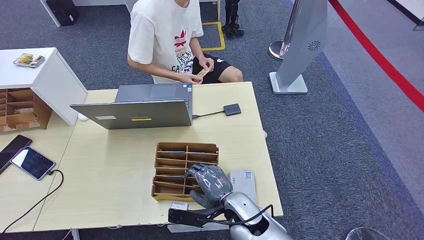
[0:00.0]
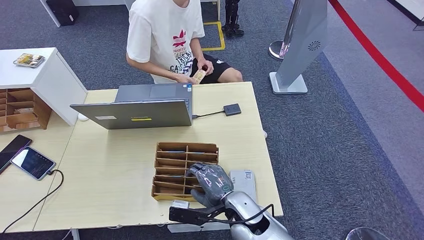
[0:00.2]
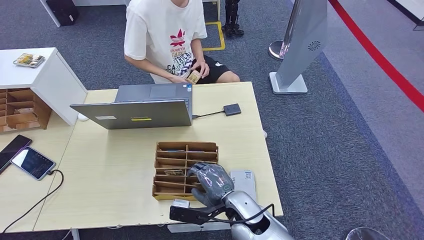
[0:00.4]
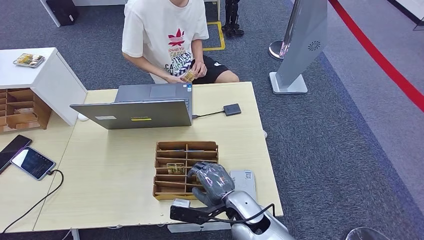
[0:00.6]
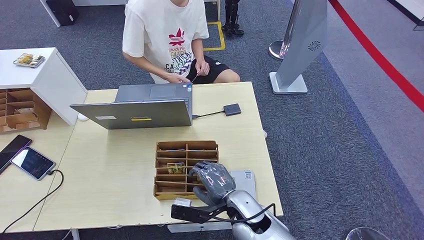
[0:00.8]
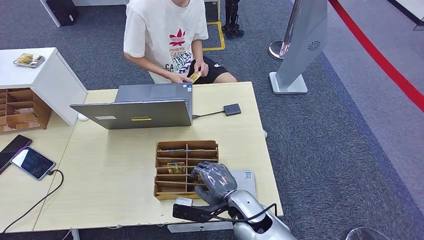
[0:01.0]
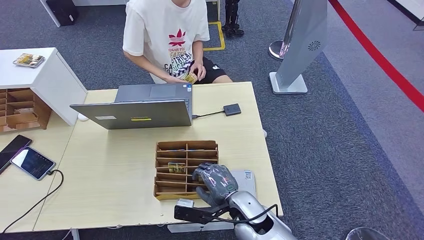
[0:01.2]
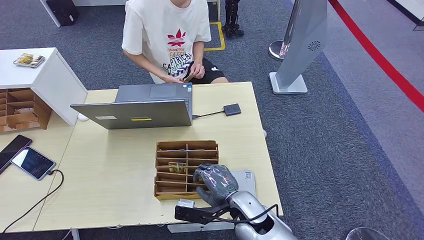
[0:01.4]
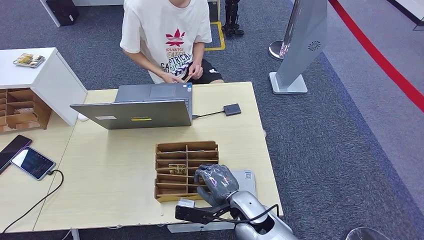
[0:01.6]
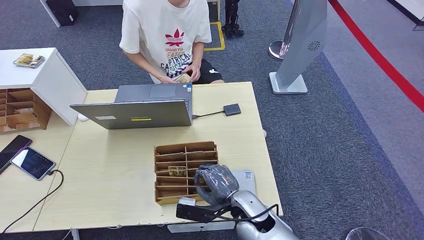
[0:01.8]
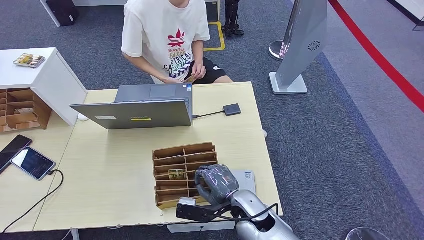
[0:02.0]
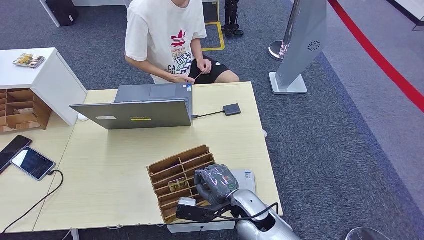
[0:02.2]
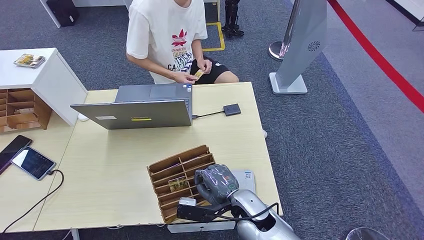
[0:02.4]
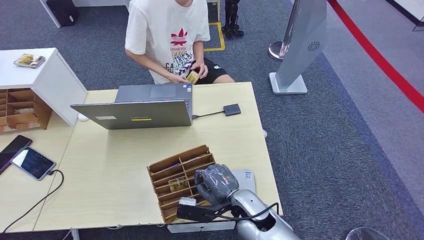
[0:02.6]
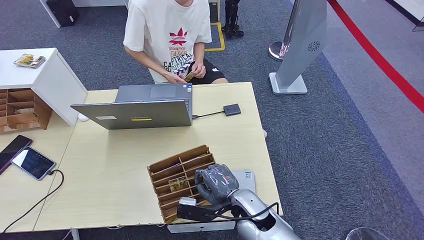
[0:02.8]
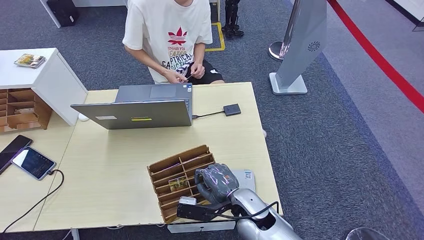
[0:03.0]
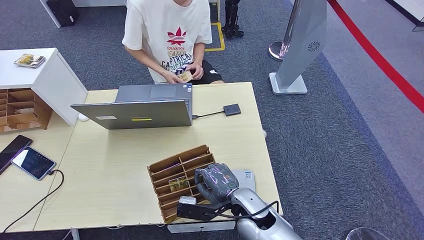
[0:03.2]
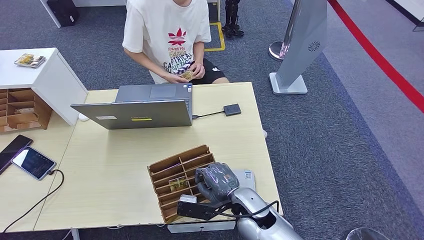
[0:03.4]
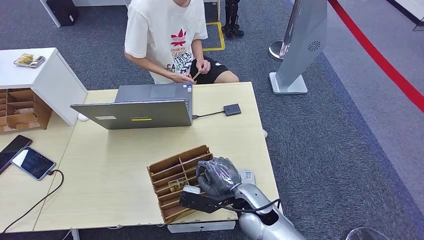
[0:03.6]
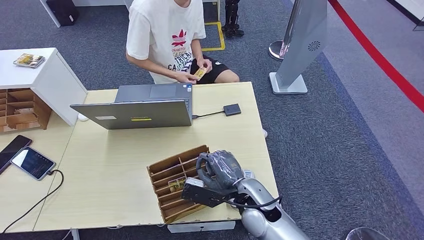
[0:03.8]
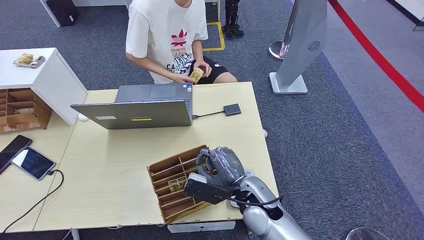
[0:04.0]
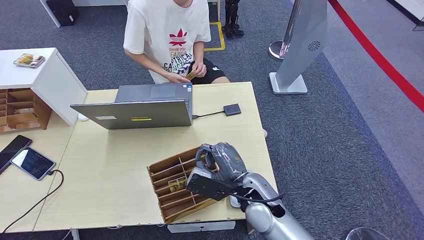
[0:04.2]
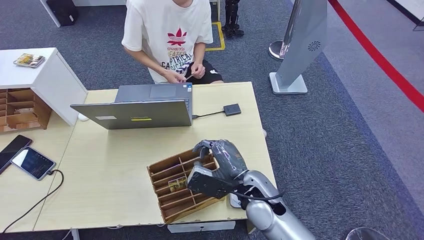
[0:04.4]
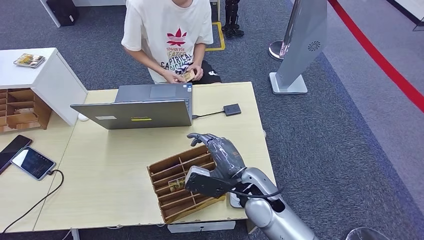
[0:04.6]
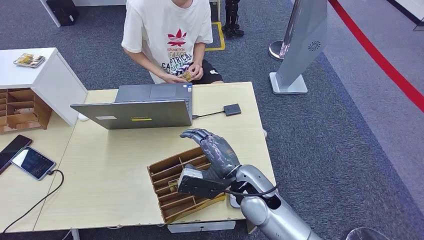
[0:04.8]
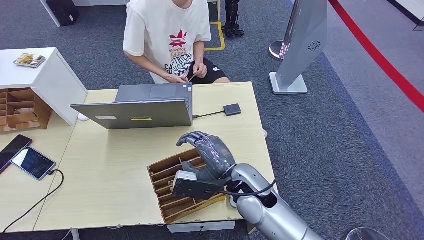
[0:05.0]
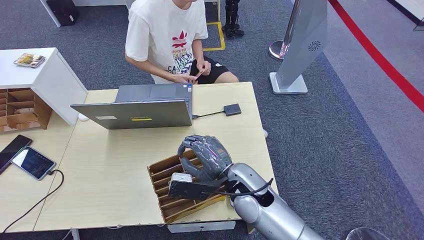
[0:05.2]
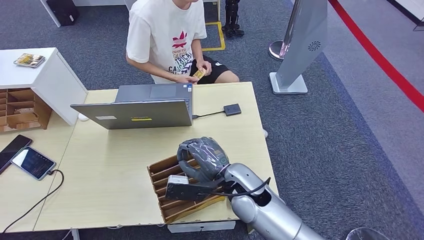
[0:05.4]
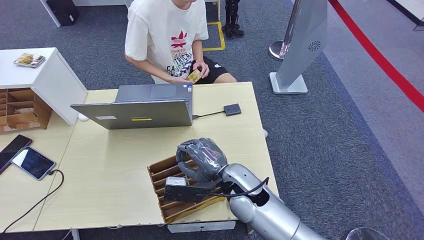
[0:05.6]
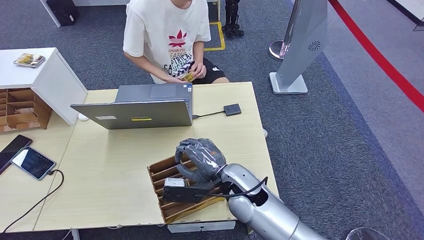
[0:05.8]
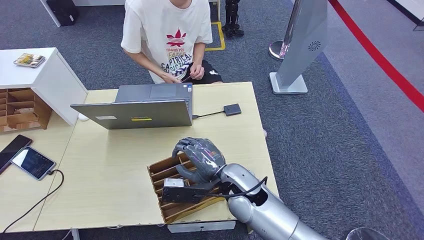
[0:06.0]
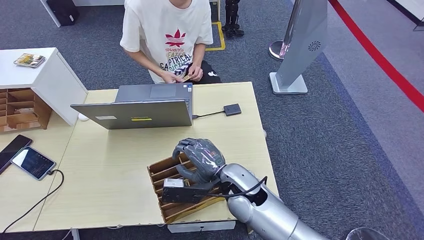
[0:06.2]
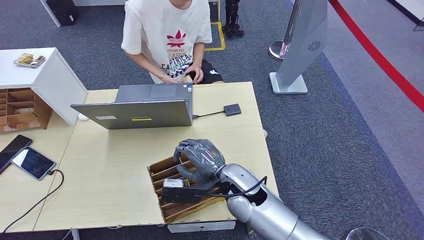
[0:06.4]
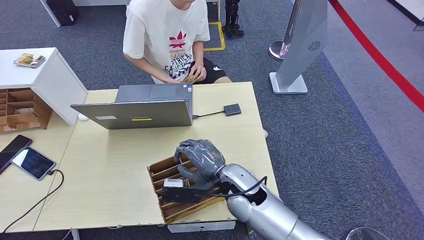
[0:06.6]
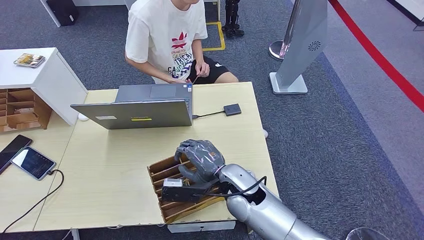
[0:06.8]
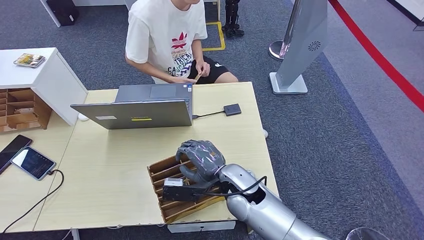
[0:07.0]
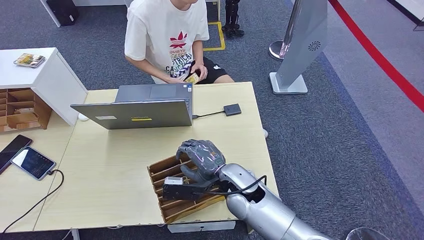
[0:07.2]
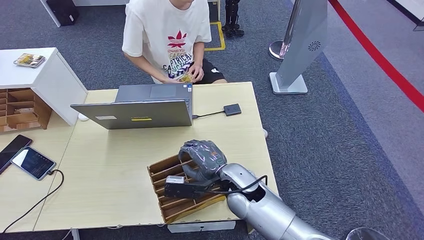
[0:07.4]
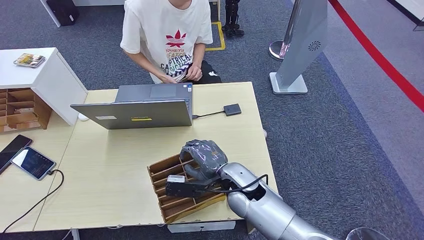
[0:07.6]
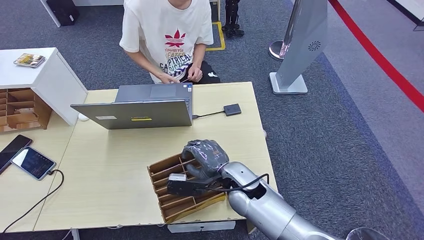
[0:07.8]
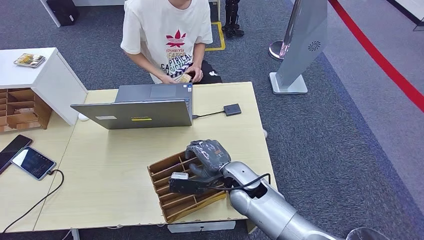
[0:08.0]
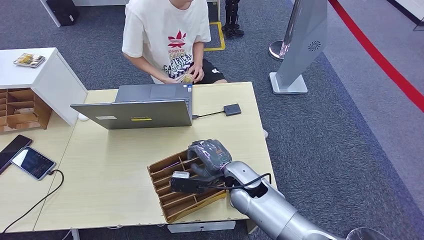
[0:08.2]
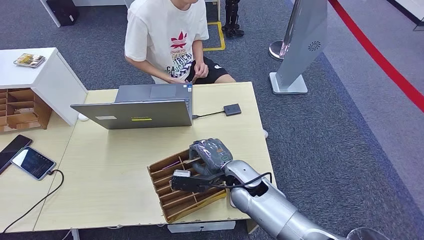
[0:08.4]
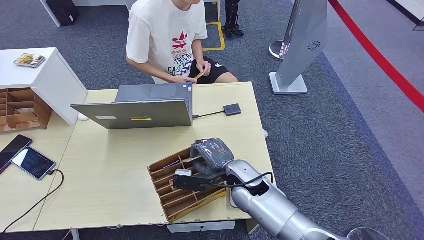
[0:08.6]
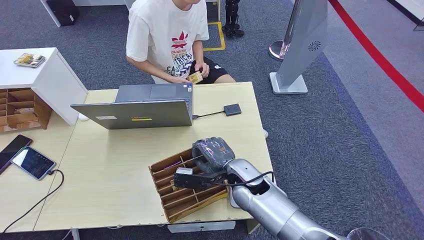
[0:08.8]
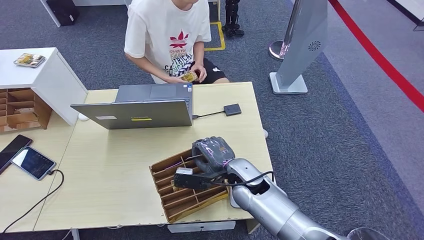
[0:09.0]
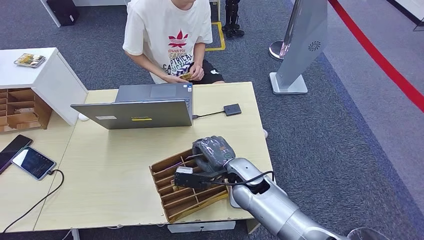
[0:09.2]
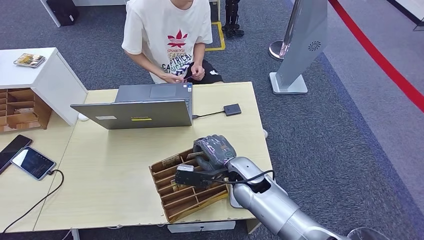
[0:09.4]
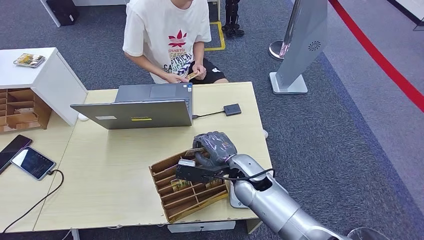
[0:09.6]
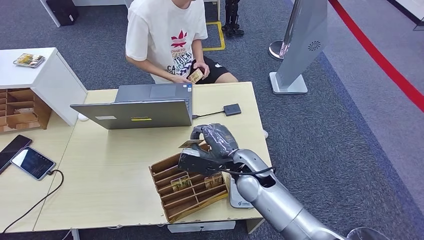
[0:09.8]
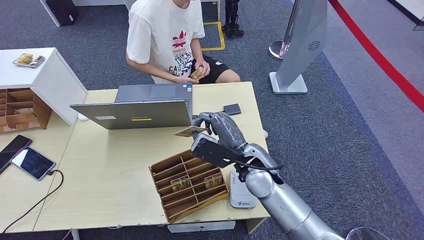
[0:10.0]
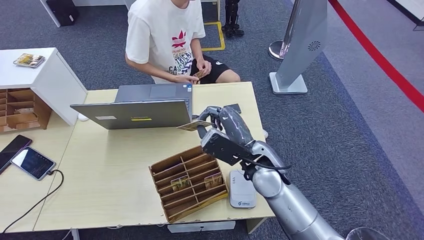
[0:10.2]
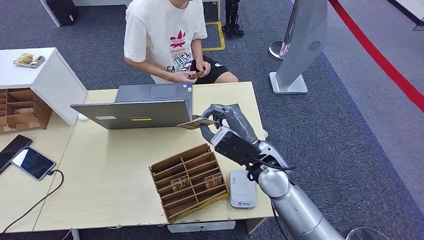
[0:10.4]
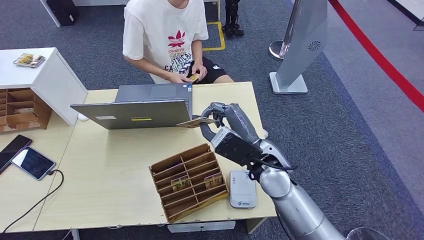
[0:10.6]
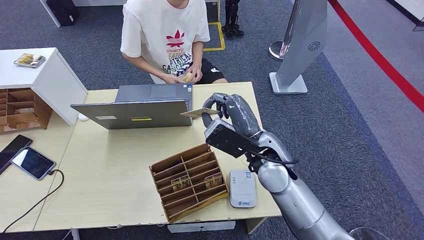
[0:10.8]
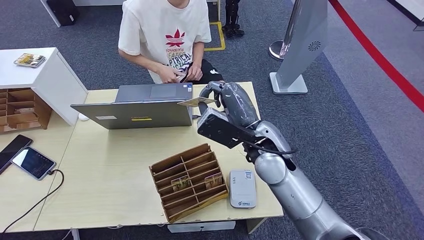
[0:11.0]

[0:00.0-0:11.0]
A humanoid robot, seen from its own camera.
Step, 0:00.0 to 0:10.8: Pick up the room key from the key card box.
0:00.0 to 0:01.6: The hands stay close to where they were, moving slightly.
0:01.6 to 0:03.2: Both hands stay about where they are.
0:03.2 to 0:04.8: The right hand is displaced upward by approximately 5 cm.
0:04.8 to 0:07.8: The hands make only small movements.
0:07.8 to 0:09.4: There are only small adjustments of the hands.
0:09.4 to 0:11.0: The right hand heads upward, covering about 15 cm.

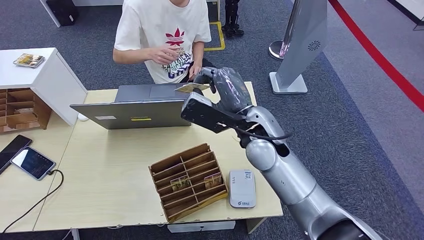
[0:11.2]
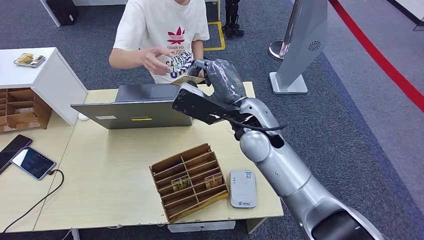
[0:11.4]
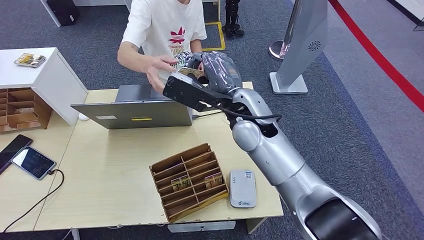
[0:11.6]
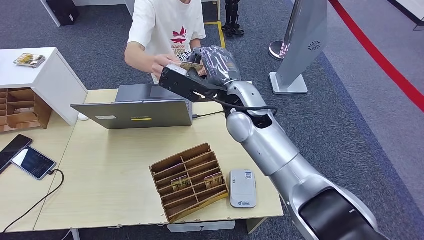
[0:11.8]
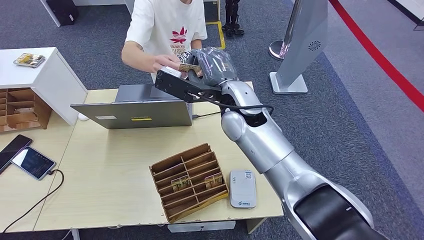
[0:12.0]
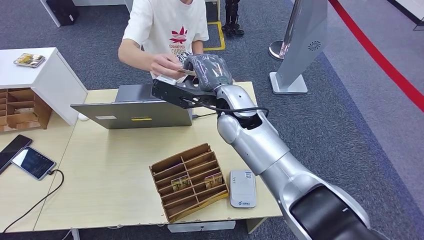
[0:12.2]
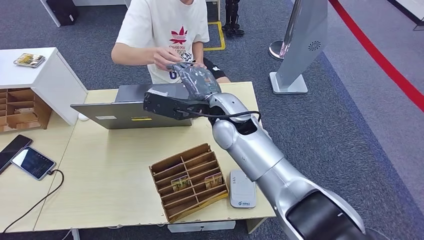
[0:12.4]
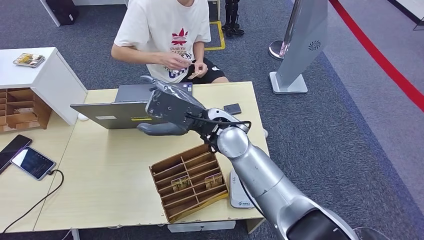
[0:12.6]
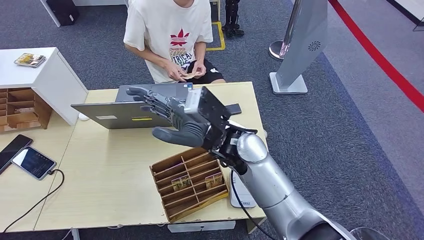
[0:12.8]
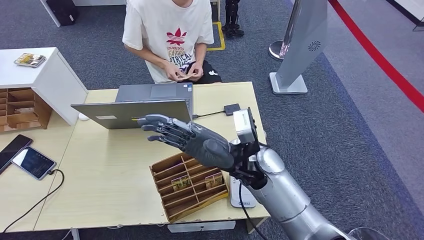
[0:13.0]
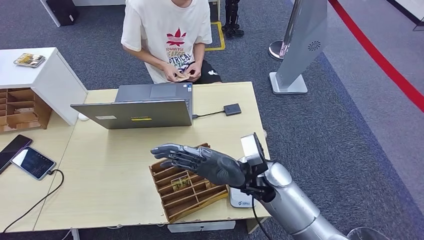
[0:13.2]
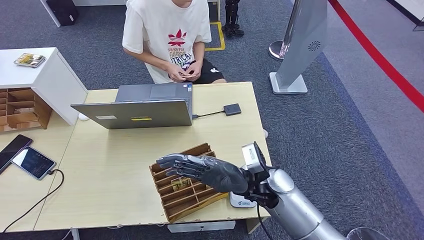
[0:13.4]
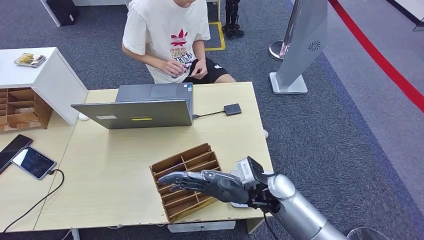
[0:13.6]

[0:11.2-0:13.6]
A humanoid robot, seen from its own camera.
Step, 0:11.2 to 0:13.6: Hand the room key to the person.
0:11.2 to 0:12.4: The right hand travels to the left by about 5 cm.
0:12.4 to 0:13.6: The right hand shifts about 20 cm downward, backward and to the right.
